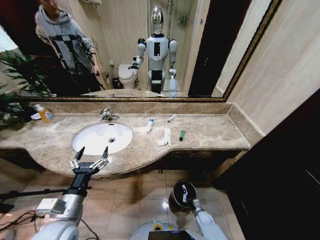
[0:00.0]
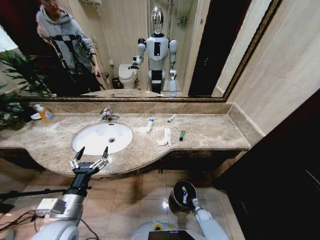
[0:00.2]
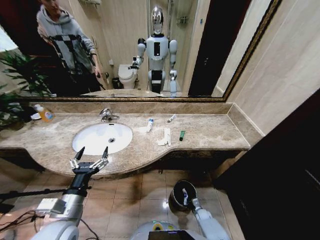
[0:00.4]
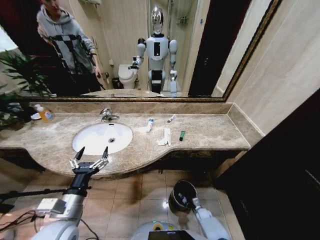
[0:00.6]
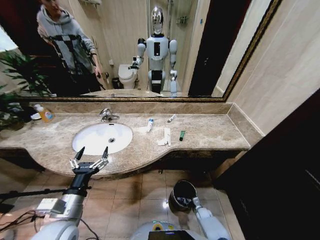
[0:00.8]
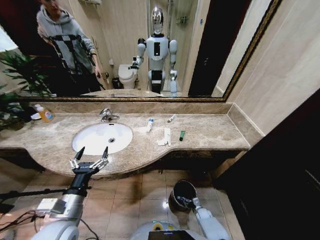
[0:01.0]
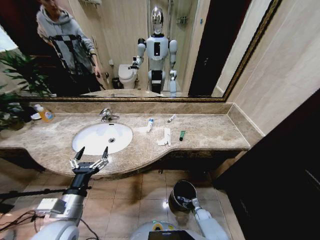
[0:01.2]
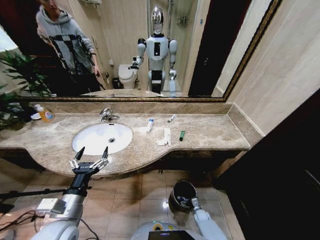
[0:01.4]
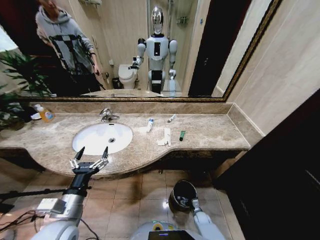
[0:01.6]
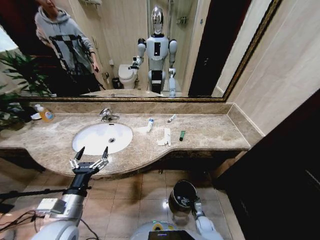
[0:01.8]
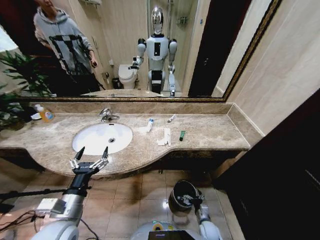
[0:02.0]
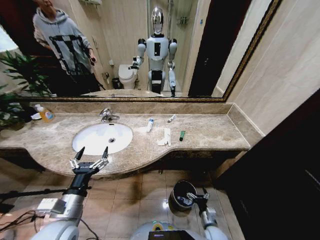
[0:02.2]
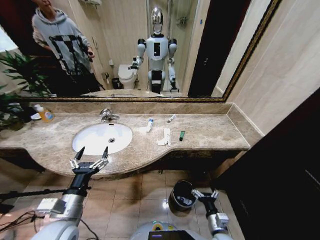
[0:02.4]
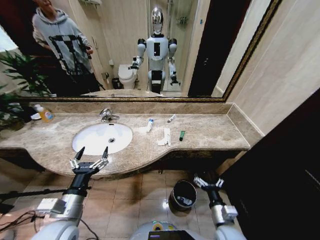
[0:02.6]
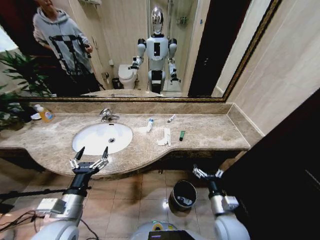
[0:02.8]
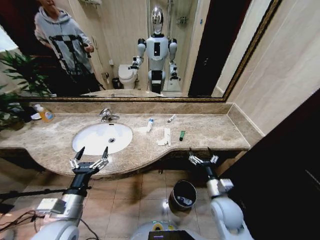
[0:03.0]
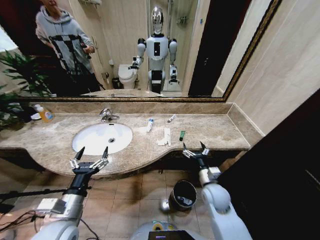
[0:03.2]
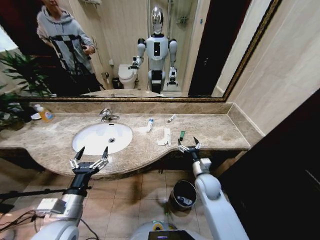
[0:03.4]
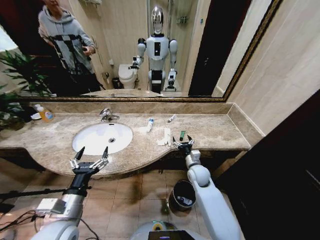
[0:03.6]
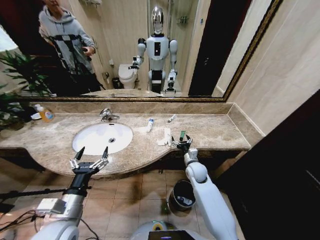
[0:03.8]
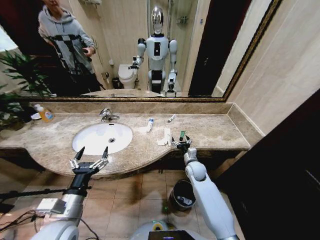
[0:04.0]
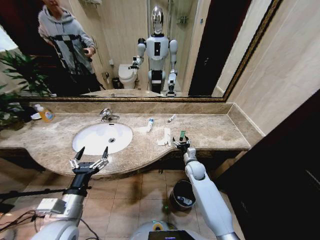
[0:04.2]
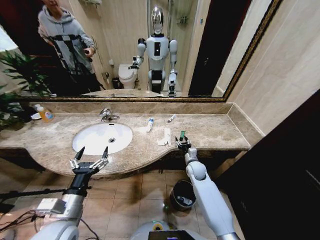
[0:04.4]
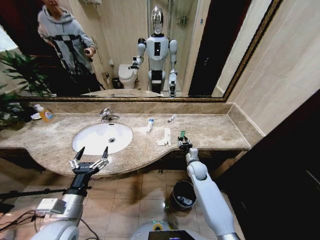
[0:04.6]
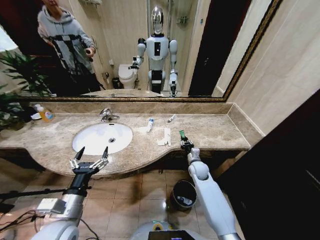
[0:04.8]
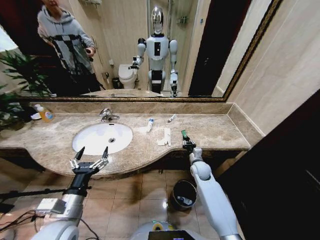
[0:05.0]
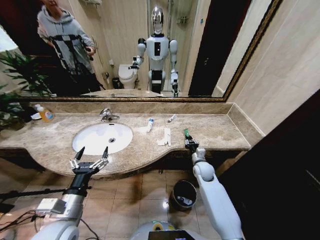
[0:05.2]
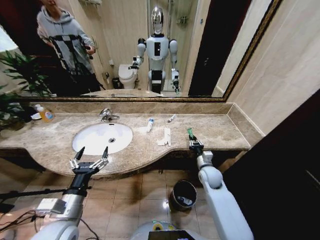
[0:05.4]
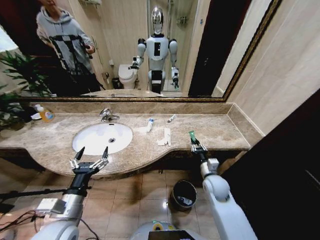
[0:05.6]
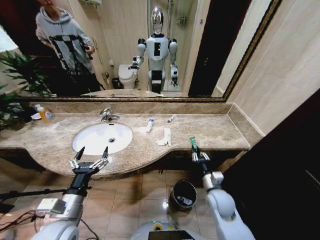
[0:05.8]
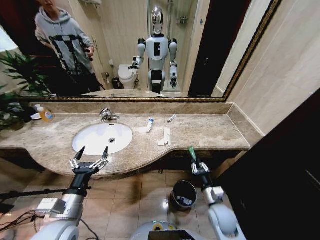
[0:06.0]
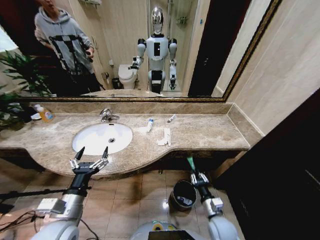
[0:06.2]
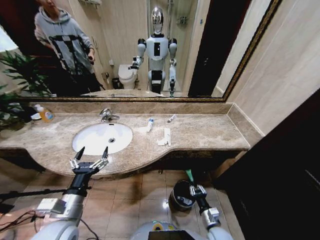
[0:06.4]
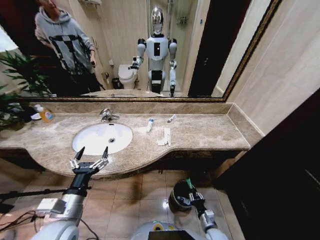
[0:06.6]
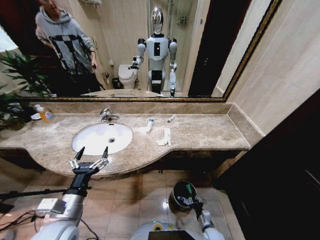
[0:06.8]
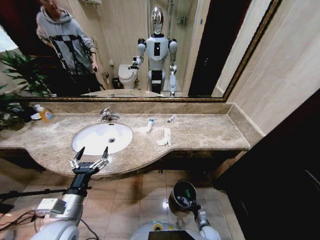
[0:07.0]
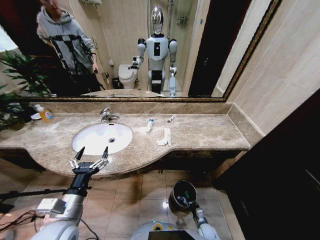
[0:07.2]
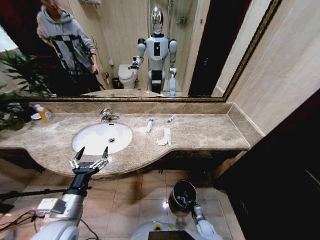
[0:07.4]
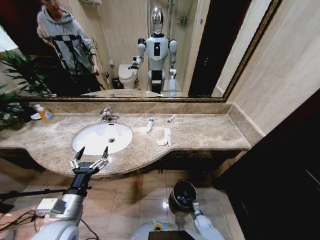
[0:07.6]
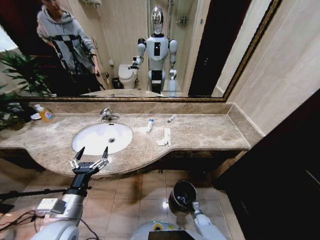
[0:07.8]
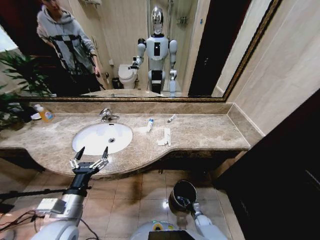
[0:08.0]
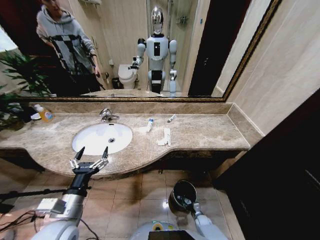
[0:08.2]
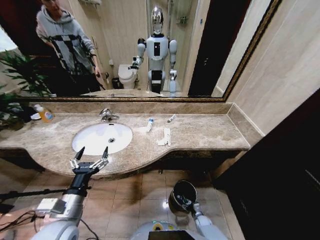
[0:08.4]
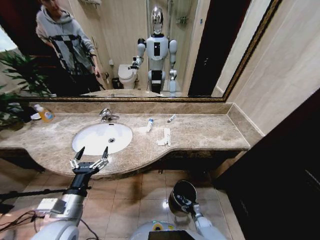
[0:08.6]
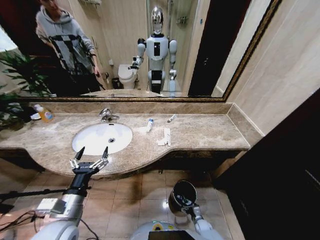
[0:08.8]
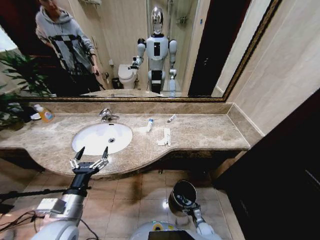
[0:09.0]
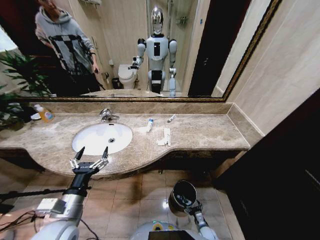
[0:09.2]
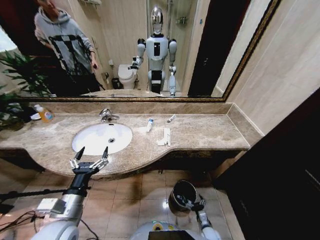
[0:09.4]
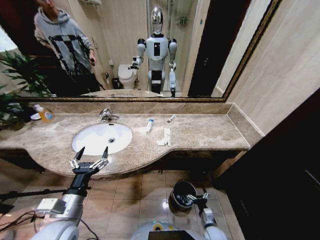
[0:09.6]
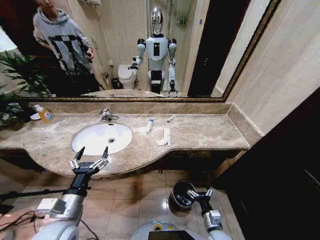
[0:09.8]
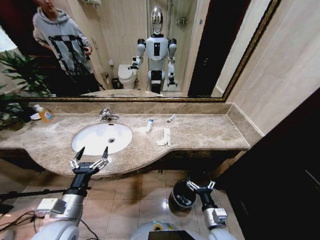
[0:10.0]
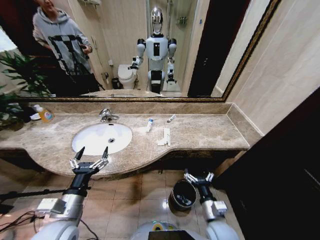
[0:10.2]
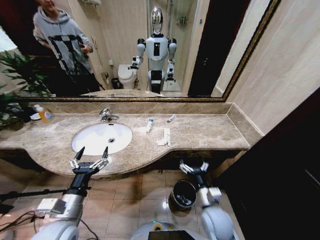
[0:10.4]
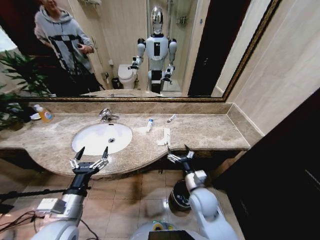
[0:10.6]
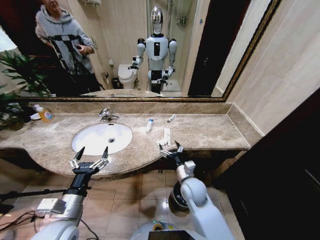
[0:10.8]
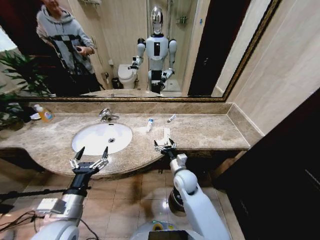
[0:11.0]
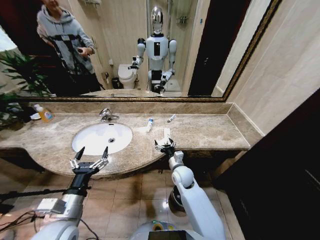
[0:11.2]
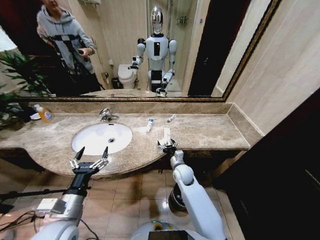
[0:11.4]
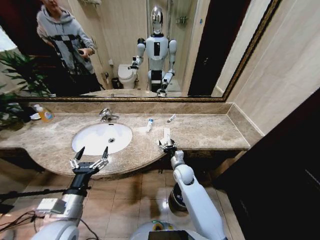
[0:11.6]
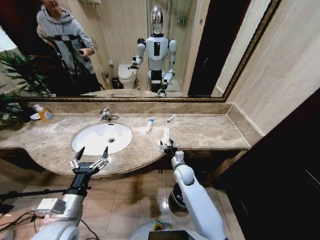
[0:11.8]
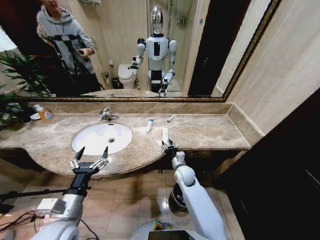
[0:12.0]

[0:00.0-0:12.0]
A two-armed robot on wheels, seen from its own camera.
Task of the whole recording: Pick up the trash from the sink and place it in the trash bin.
0:01.6 to 0:03.0: The right gripper goes about 35 cm upward.
0:03.0 to 0:04.4: The right gripper shifts some 20 cm forward.
0:04.4 to 0:06.0: The right gripper is displaced backward by approximately 20 cm, and closes up.
0:06.0 to 0:07.6: The right gripper travels downward by about 30 cm.
0:07.6 to 0:09.0: The right gripper opens up.
0:09.0 to 0:10.4: The right gripper goes about 35 cm upward.
0:10.4 to 0:12.0: The right gripper travels forward by about 20 cm, and closes up.

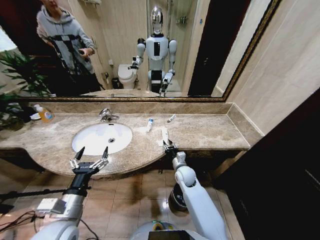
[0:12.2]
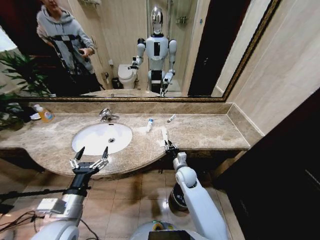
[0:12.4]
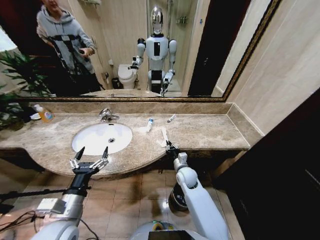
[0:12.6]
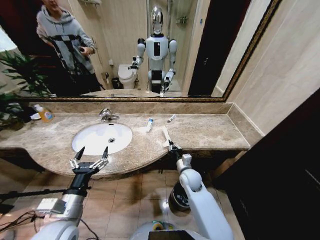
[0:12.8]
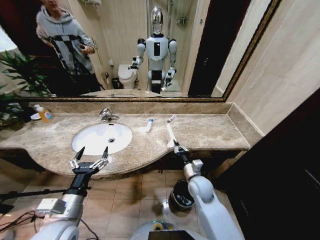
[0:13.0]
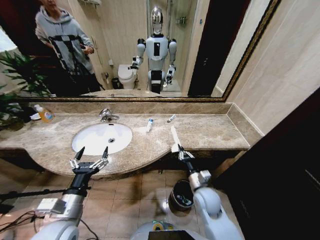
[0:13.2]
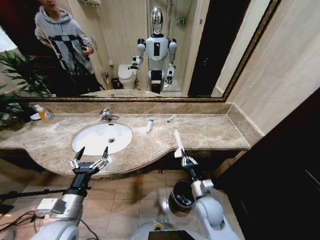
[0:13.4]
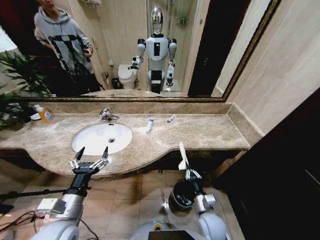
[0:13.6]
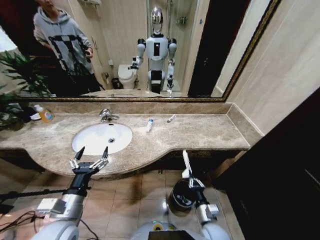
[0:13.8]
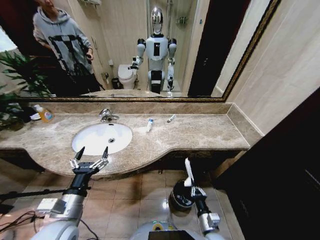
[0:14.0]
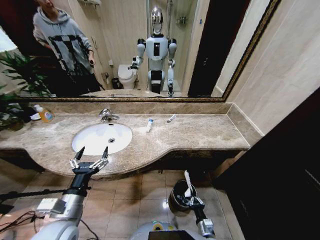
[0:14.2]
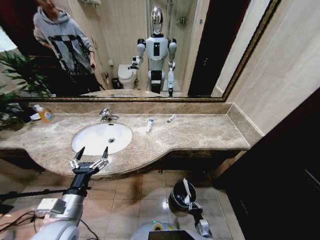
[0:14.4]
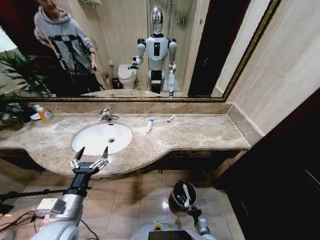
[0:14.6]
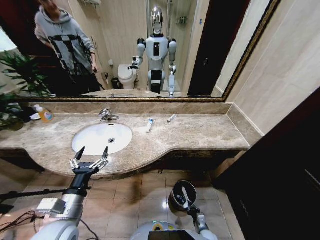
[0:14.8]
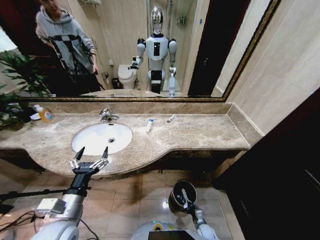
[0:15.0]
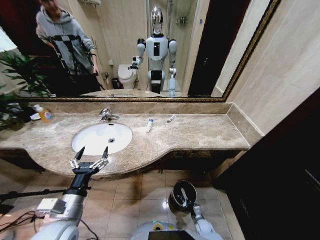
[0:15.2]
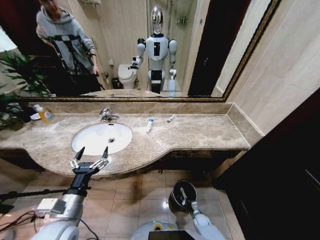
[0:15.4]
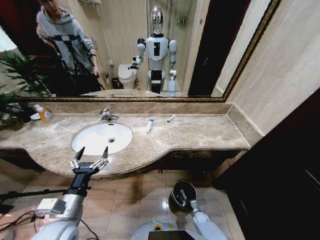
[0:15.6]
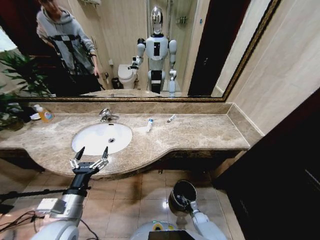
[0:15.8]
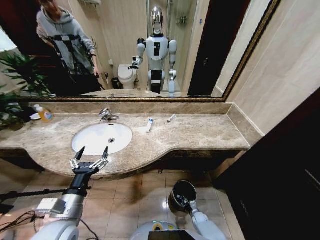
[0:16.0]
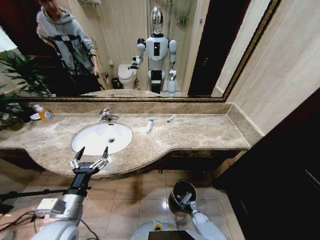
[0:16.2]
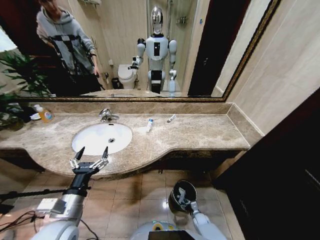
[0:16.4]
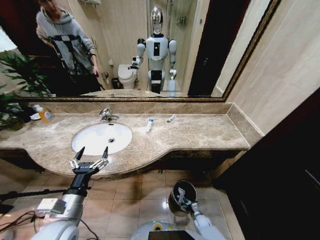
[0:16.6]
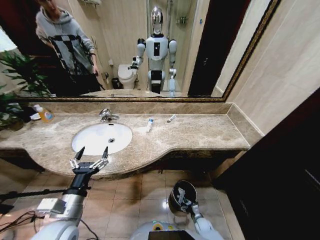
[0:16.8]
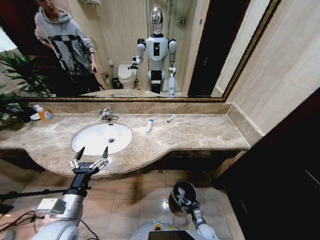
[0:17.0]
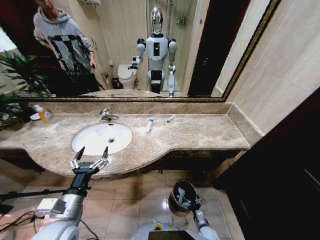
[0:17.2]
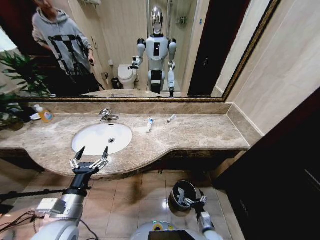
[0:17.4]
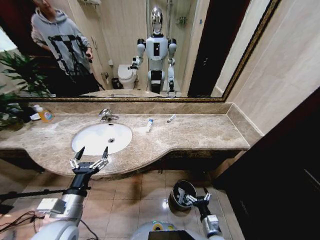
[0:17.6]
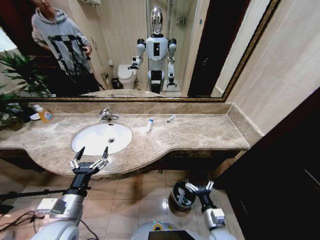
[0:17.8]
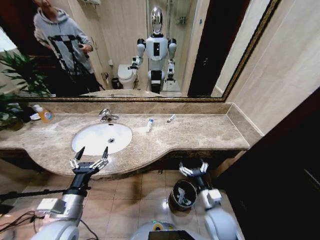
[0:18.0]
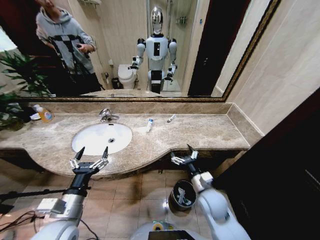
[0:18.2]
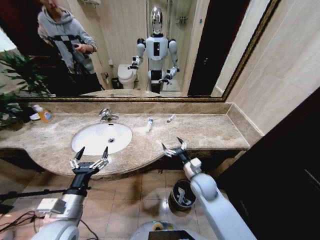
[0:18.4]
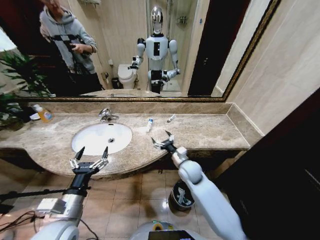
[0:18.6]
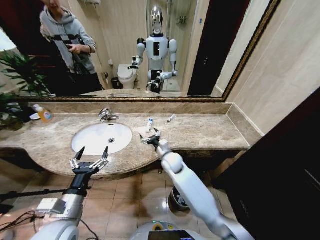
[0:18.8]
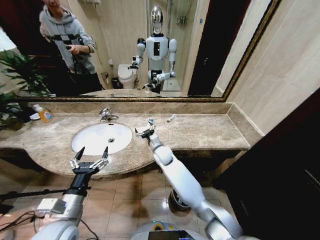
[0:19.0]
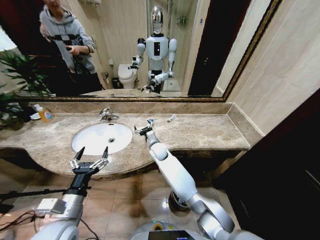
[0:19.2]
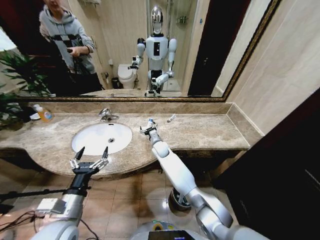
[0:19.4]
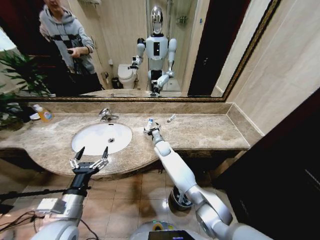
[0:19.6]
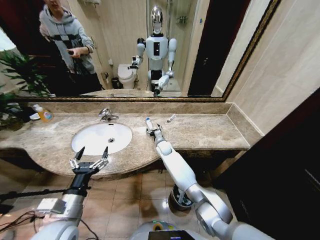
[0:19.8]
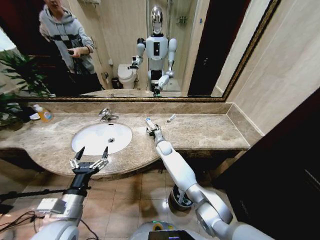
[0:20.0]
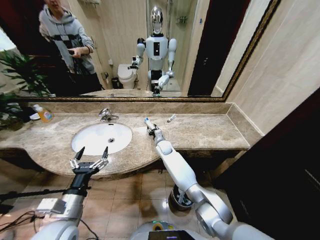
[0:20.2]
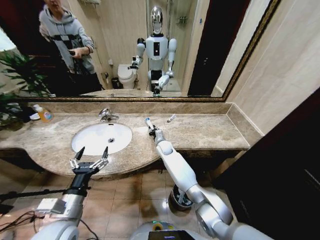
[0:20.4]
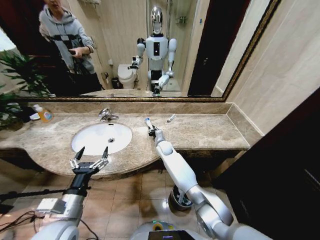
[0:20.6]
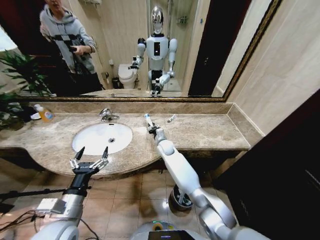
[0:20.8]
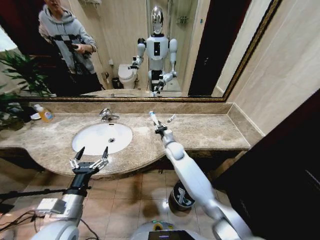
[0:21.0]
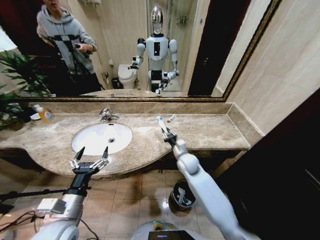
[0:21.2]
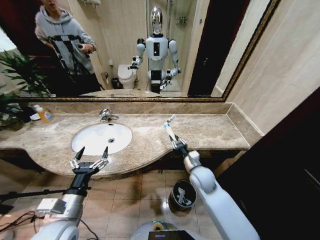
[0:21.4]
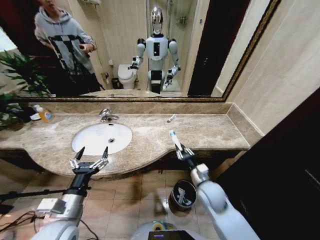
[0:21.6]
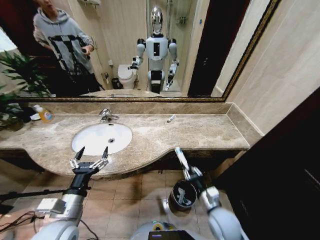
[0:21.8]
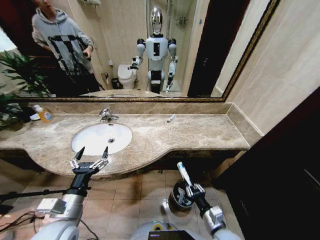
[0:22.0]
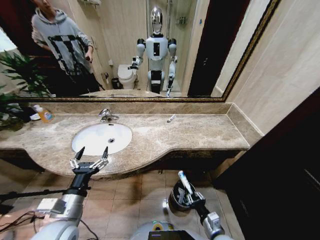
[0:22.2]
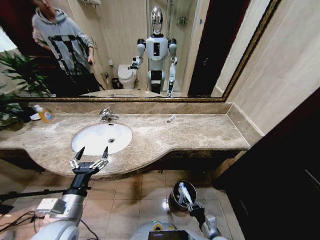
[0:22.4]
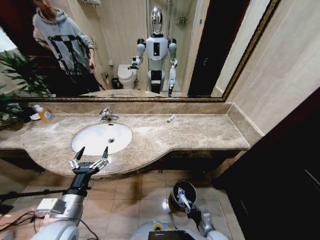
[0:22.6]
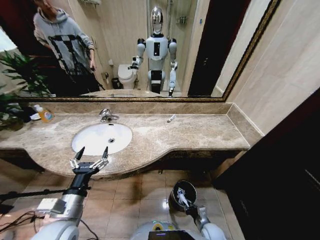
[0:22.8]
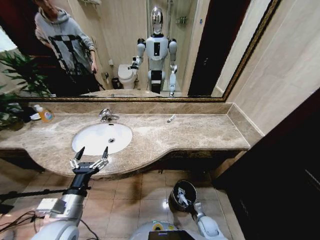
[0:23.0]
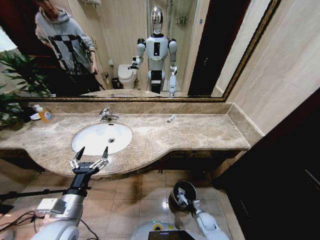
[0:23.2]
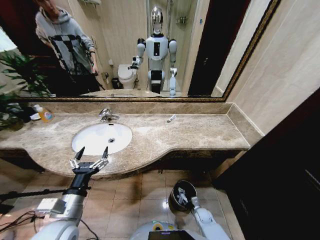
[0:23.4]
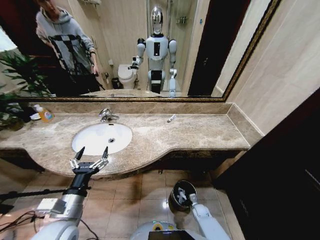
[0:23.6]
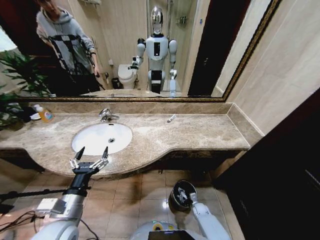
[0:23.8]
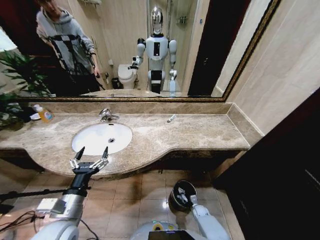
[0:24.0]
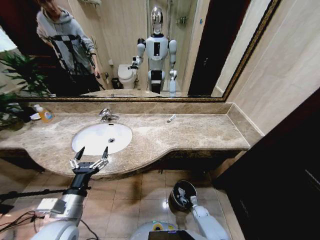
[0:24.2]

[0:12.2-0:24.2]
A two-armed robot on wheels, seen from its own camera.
Task of the whole recording: Pick up the trash from the sink and place it in the trash bin.
0:12.2 to 0:13.8: The right gripper heads backward, covering roughly 20 cm, and closes up.
0:13.8 to 0:15.2: The right gripper travels downward by some 25 cm.
0:15.2 to 0:16.6: The right gripper opens up.
0:16.6 to 0:18.2: The right gripper travels upward by approximately 40 cm.
0:18.2 to 0:19.8: The right gripper moves forward and to the left, approximately 35 cm.
0:19.8 to 0:21.2: The right gripper goes roughly 20 cm backward and to the right, and closes its fingers.
0:21.2 to 0:22.6: The right gripper moves backward and downward, some 35 cm.
0:22.6 to 0:24.2: The right gripper heads downward and forward, covering roughly 20 cm.
